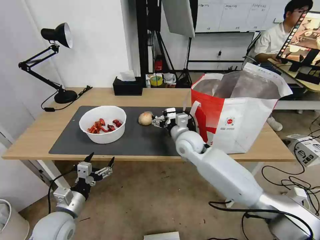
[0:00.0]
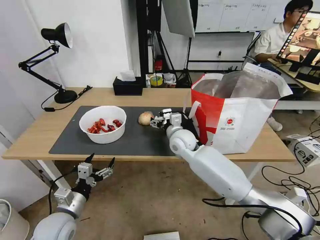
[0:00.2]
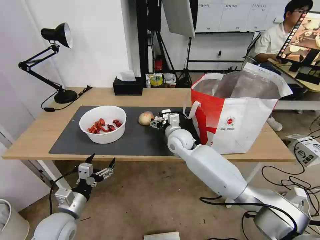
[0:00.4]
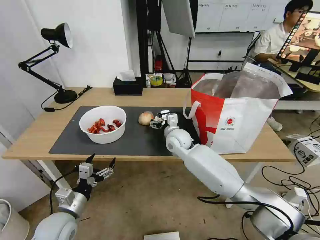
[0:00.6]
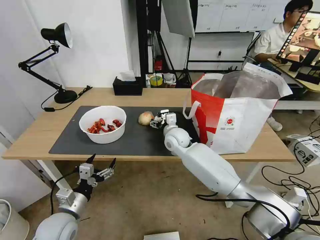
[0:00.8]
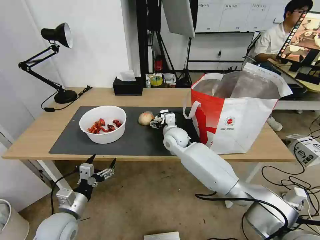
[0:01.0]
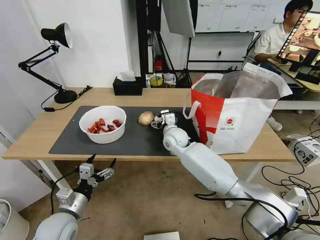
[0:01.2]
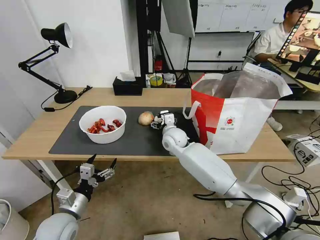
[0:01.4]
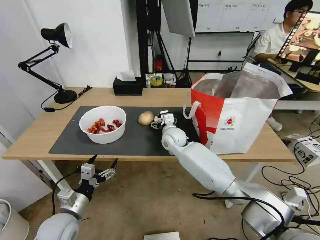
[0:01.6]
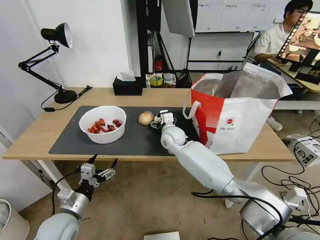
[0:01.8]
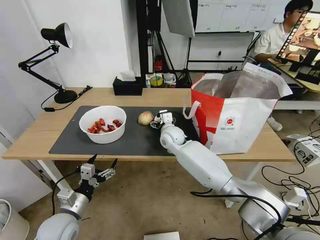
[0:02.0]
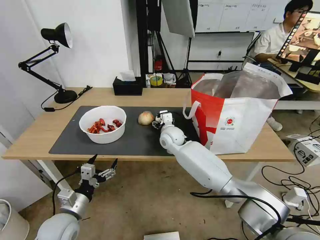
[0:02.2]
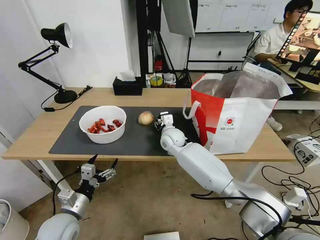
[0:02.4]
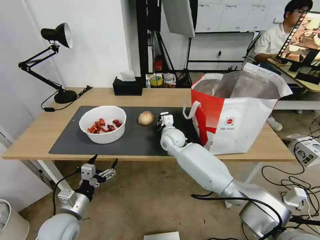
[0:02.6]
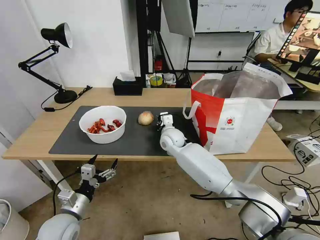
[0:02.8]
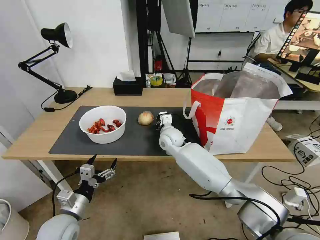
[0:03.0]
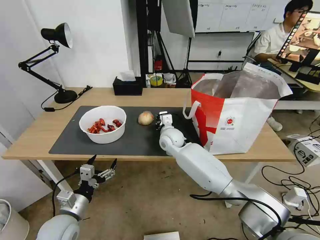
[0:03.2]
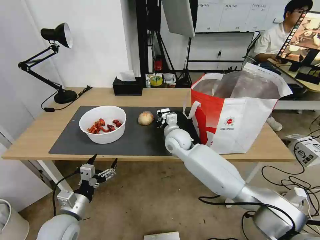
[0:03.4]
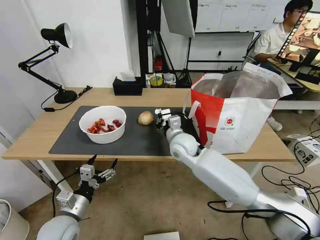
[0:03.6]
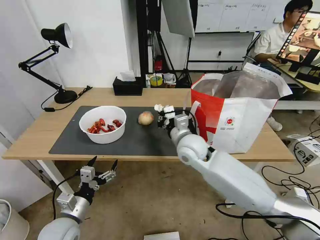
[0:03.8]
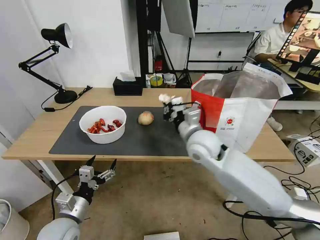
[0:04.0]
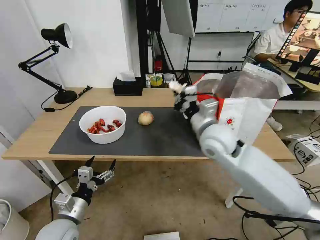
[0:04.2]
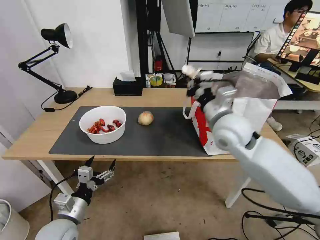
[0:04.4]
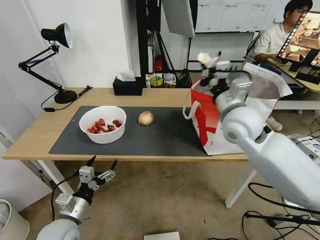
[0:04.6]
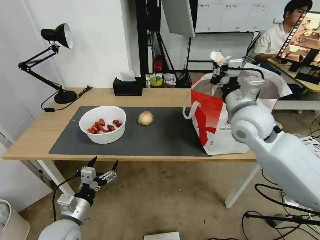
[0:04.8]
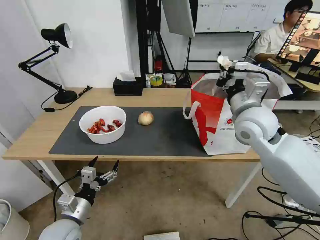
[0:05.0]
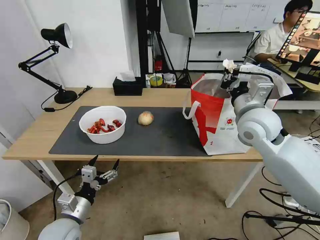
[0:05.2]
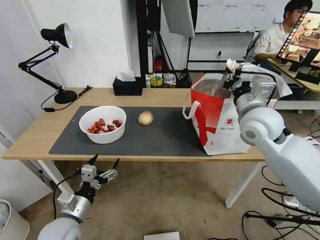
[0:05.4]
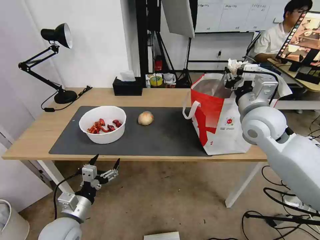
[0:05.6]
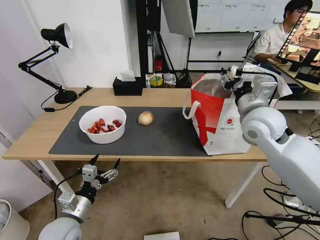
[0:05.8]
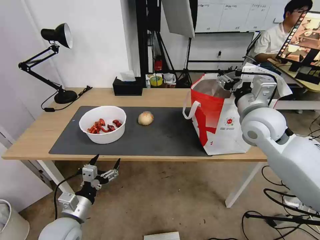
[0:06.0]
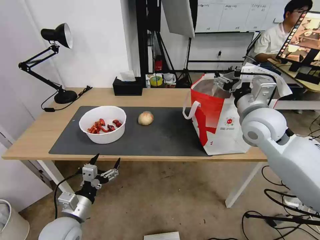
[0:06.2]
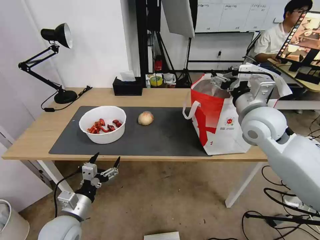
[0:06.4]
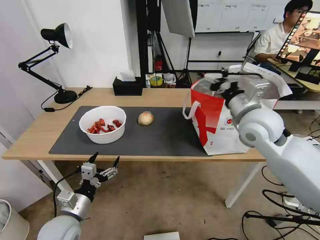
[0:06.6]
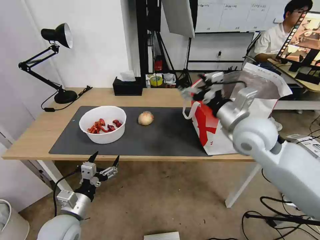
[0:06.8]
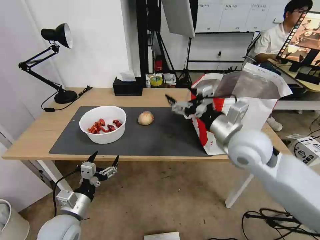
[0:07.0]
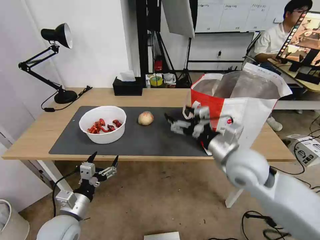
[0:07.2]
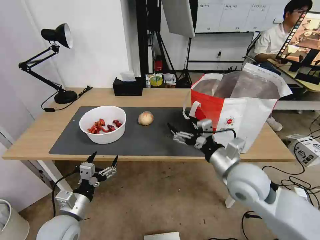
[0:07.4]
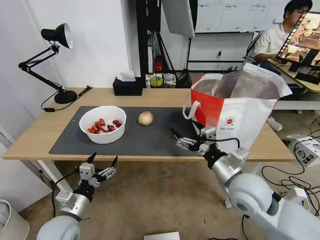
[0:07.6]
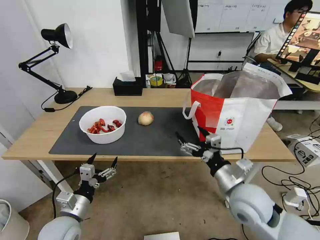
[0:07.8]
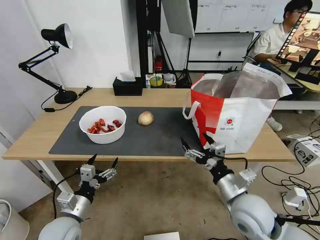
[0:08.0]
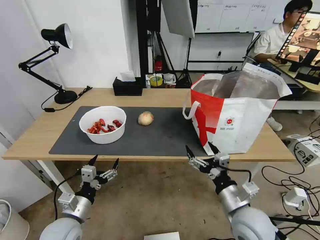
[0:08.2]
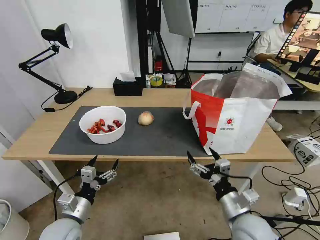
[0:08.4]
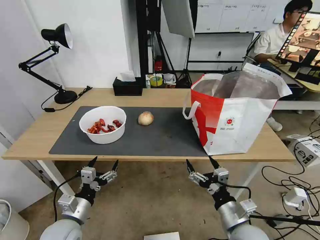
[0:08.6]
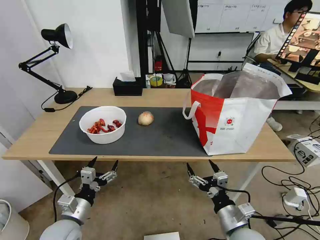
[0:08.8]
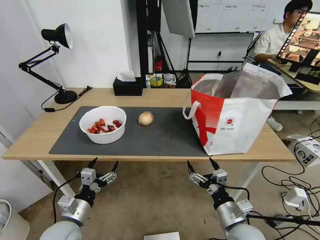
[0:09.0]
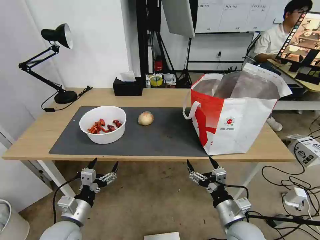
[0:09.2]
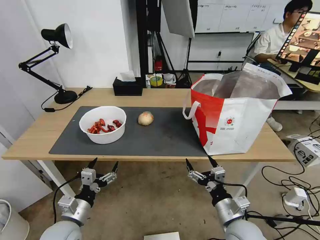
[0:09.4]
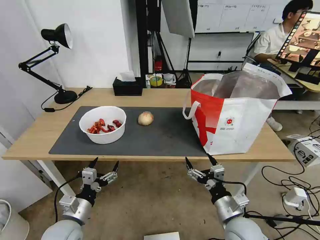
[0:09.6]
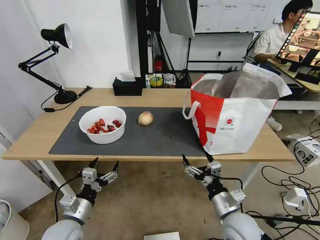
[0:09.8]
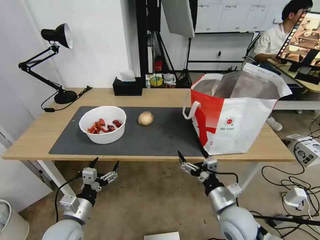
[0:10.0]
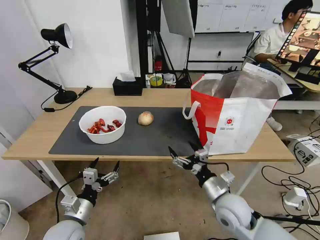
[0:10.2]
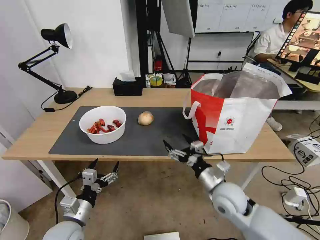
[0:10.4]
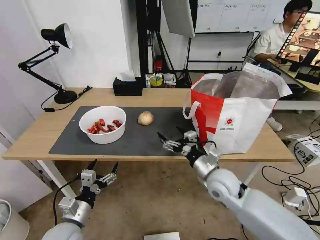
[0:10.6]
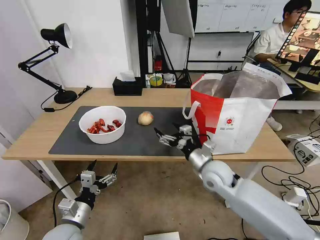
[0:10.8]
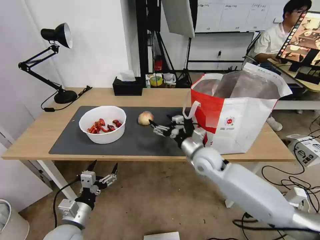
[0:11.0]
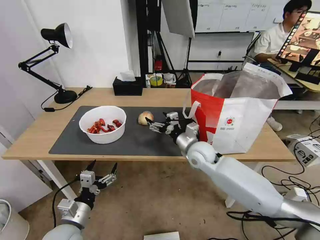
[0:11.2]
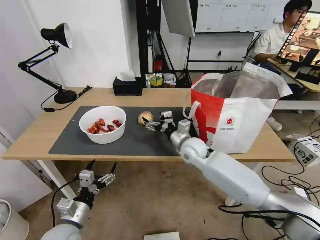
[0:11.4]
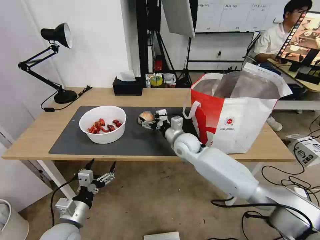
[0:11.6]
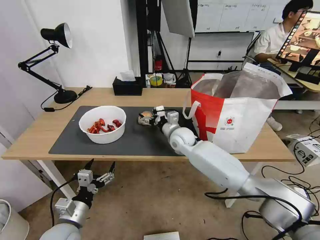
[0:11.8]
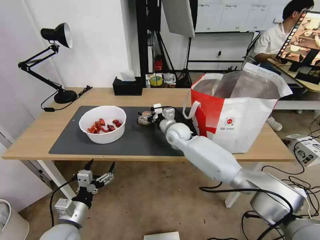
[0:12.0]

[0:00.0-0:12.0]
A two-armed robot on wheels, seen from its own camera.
Task of the whole recording: Pick up the trash from the table and place it into the takeout bag.
0:00.0 to 0:01.6: The right gripper changes place by roughly 5 cm.
0:01.6 to 0:03.0: The right gripper closes up.
0:03.0 to 0:04.4: The right gripper is displaced upward, to the right and backward by roughly 25 cm.
0:04.4 to 0:06.0: The right gripper travels to the right by some 10 cm, and opens.
0:06.0 to 0:07.6: The right gripper is displaced backward and downward by roughly 20 cm.
0:07.6 to 0:09.0: The right gripper goes some 15 cm downward and backward.
0:09.0 to 0:10.4: The right gripper travels forward by approximately 10 cm.
0:10.4 to 0:12.0: The right gripper heads forward and to the left, covering about 30 cm.

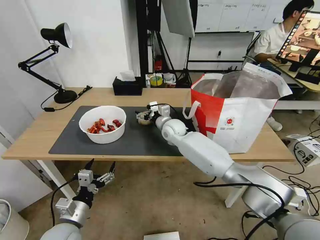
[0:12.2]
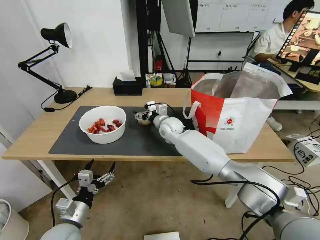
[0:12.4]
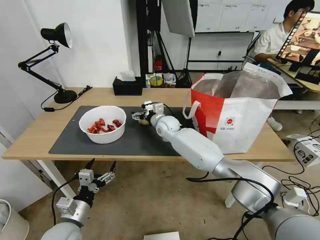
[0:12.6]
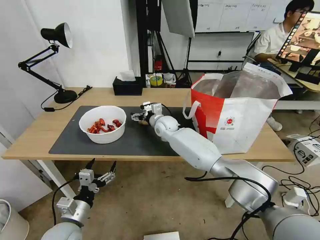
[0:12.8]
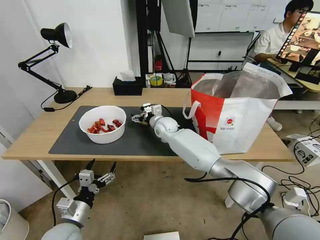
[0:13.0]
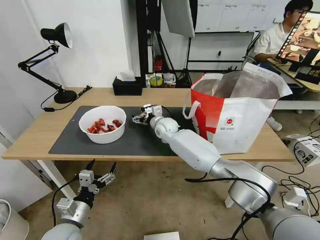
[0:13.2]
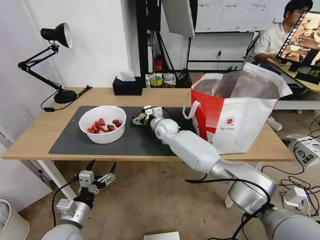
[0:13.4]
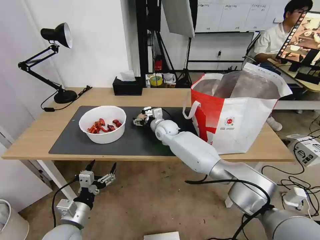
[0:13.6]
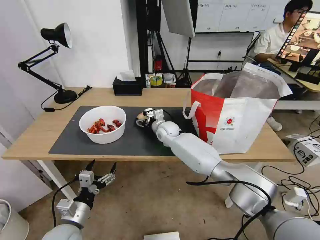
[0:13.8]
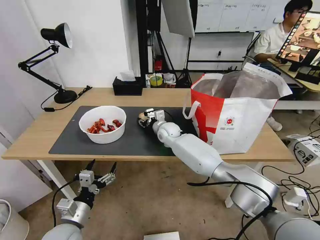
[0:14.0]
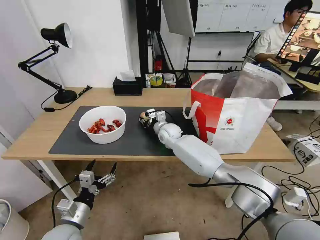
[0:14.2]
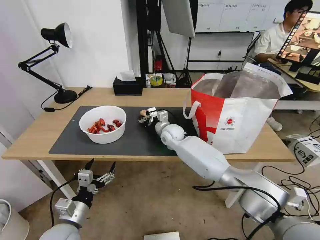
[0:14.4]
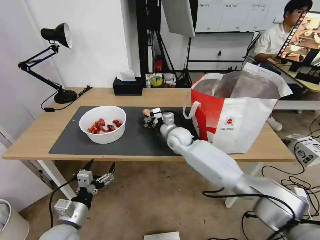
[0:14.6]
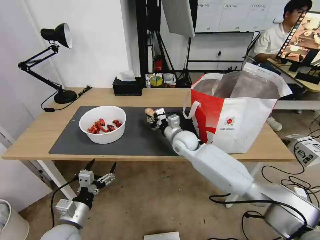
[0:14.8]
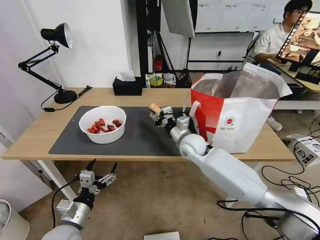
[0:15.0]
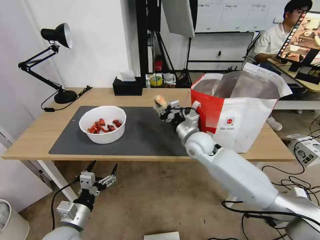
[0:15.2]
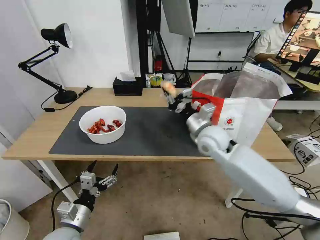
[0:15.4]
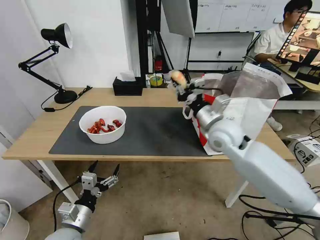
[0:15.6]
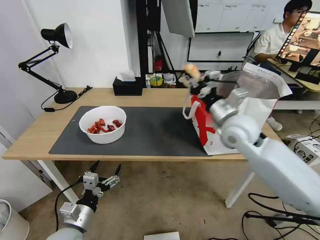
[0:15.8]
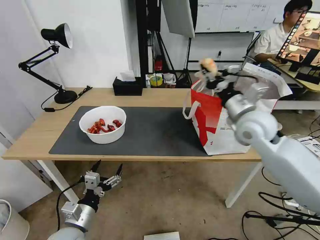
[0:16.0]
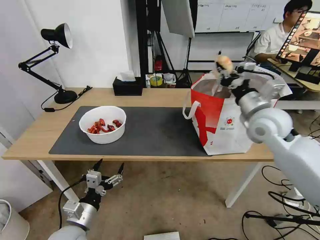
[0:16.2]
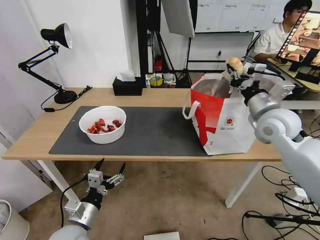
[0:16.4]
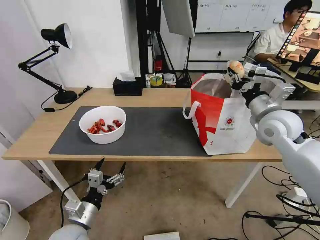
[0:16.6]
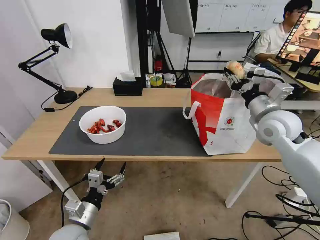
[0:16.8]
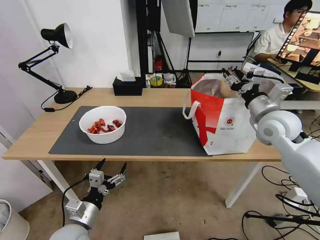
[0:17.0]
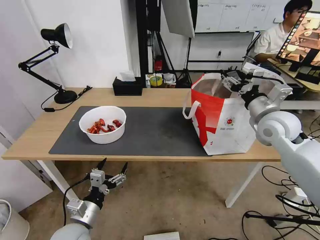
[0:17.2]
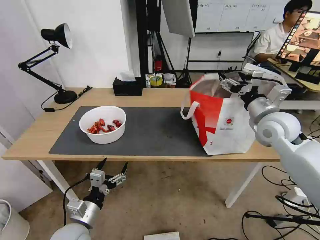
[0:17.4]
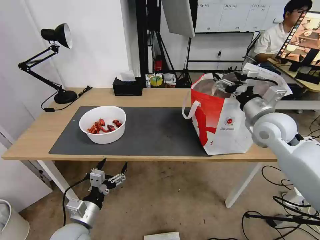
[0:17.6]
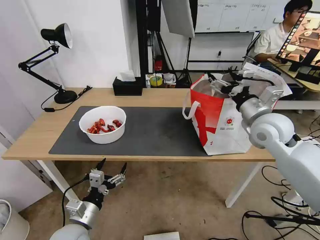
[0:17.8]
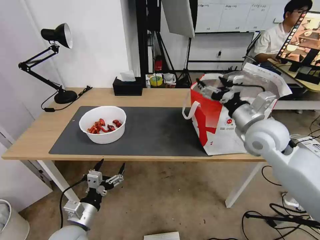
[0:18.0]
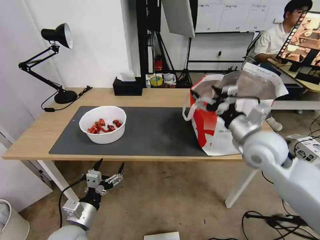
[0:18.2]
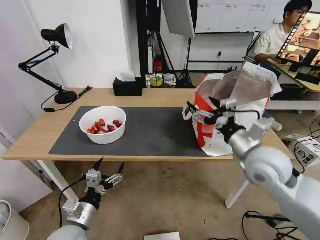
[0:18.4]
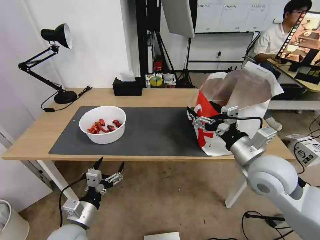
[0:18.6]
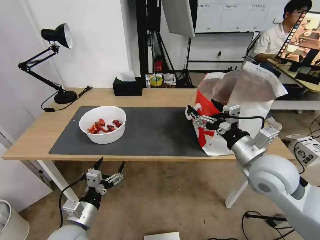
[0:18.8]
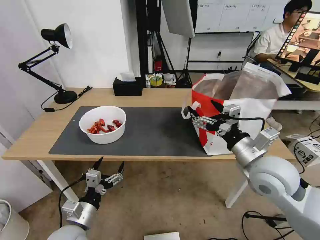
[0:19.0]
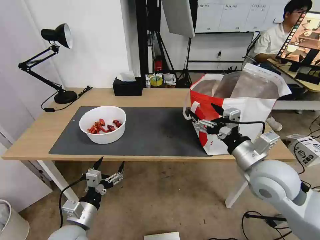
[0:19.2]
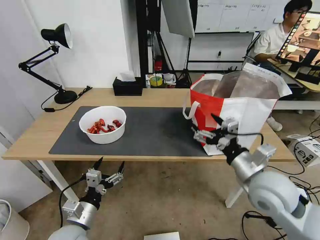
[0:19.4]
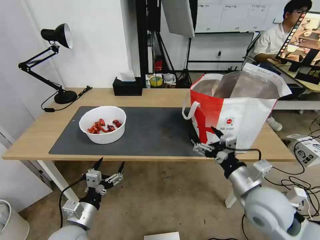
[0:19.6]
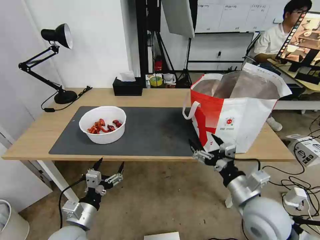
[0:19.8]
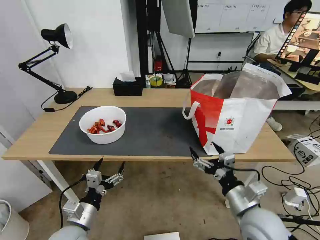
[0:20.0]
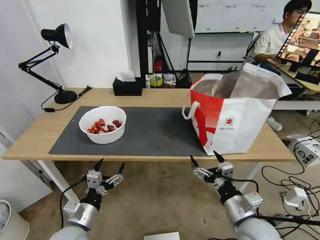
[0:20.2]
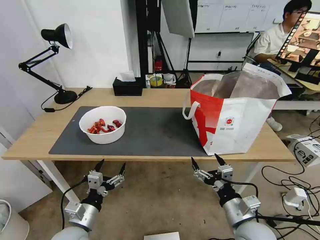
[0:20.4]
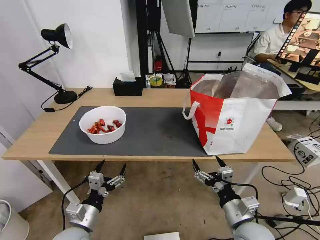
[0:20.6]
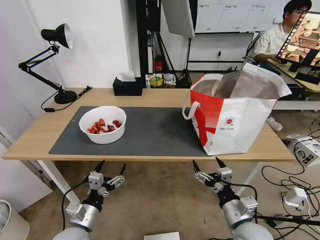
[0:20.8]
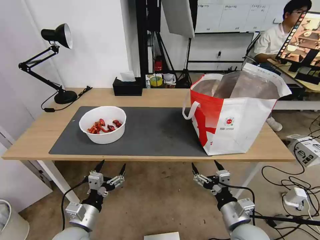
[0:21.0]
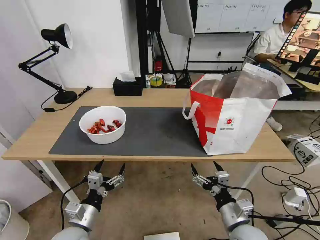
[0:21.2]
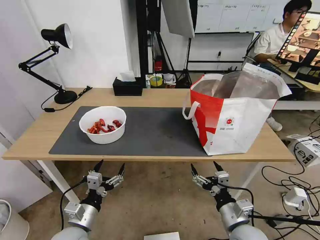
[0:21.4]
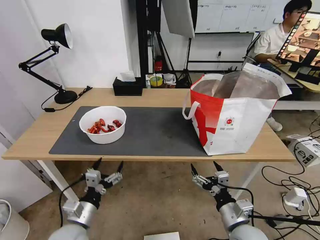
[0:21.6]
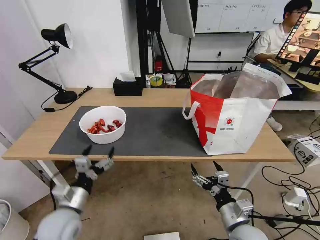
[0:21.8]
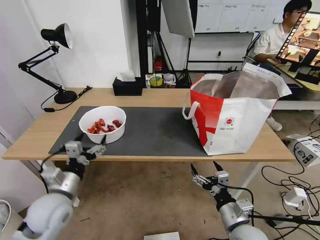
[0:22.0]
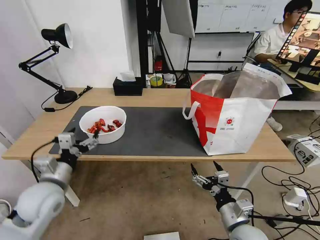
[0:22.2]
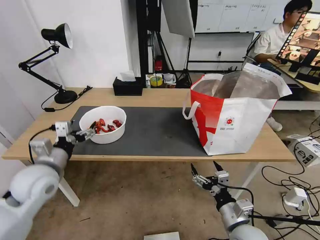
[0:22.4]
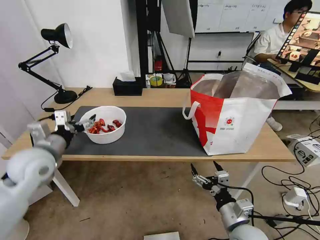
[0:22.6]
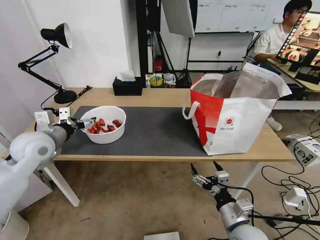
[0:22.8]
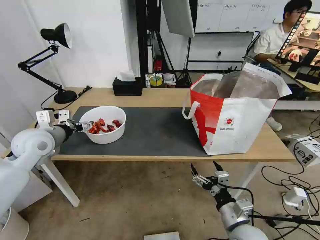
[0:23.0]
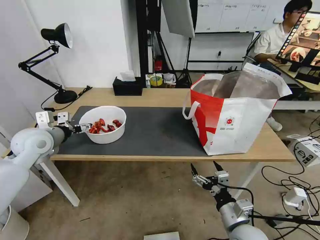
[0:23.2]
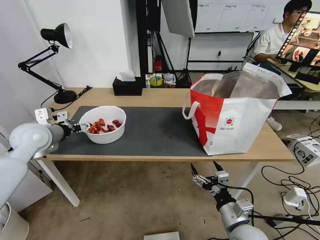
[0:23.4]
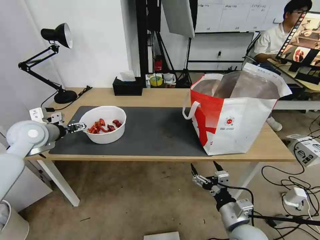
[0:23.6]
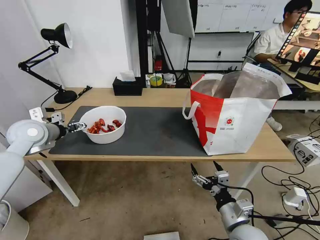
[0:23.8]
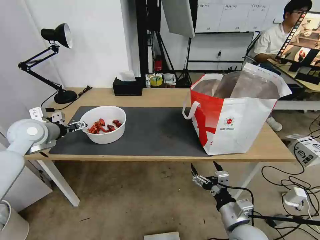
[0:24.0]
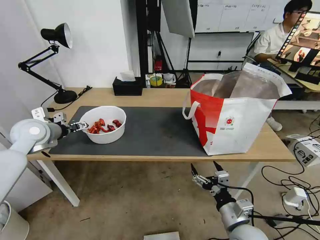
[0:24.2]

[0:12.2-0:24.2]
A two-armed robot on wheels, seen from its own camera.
Task of the whole recording: Pick up the trash from the table and place it into the takeout bag.
0:12.2 to 0:13.8: The grippers stay close to where they were, moving slightly.
0:13.8 to 0:15.2: The right gripper heads backward, to the right and upward, covering roughly 20 cm, and closes its fingers.
0:15.2 to 0:16.6: The right gripper goes roughly 20 cm to the right and upward.
0:16.6 to 0:18.2: The right gripper travels to the left and backward by roughly 10 cm, and opens up.
0:18.2 to 0:19.8: The right gripper goes some 15 cm backward and downward.
0:19.8 to 0:21.2: The right gripper travels downward by approximately 10 cm.
0:21.2 to 0:22.6: The left gripper is displaced upward, forward and to the left by roughly 25 cm.
0:22.6 to 0:24.2: The left gripper travels forward and to the left by about 10 cm.
